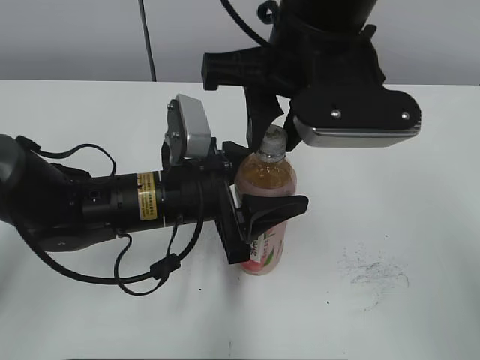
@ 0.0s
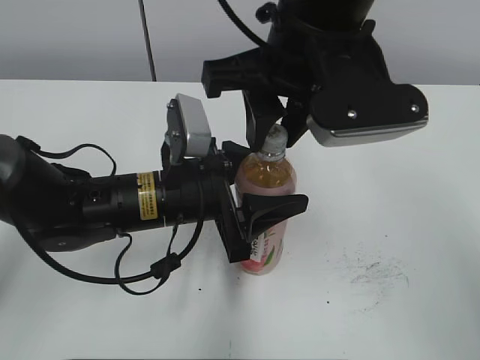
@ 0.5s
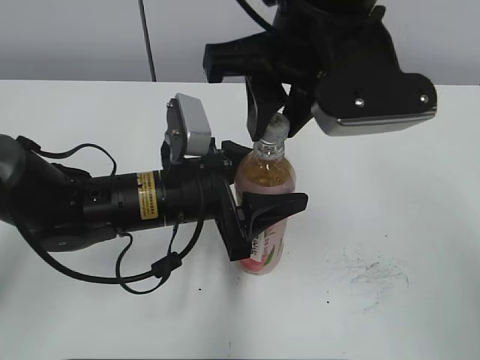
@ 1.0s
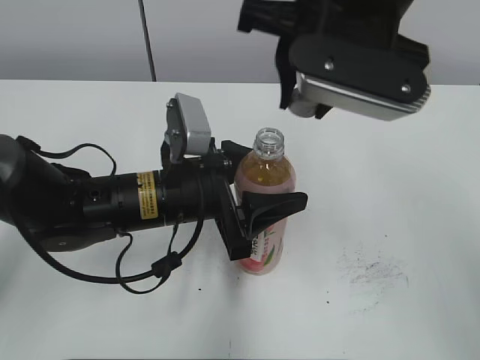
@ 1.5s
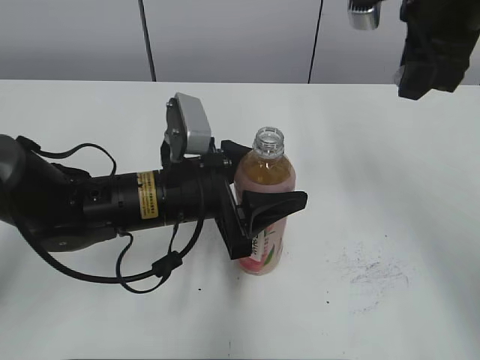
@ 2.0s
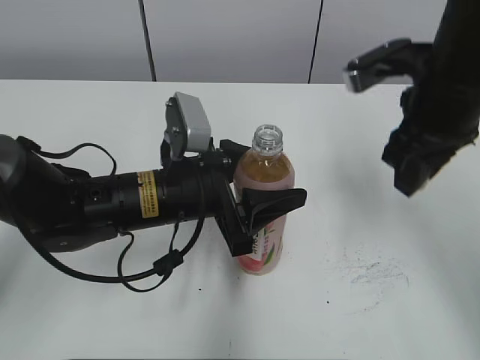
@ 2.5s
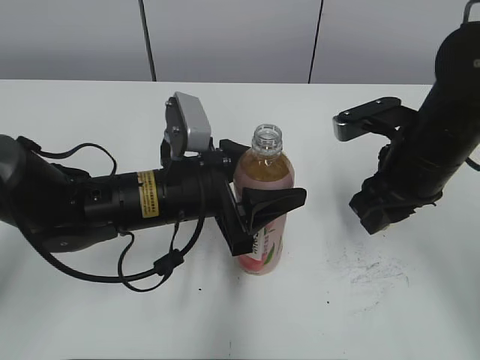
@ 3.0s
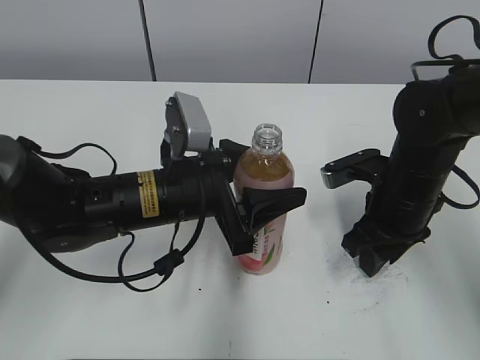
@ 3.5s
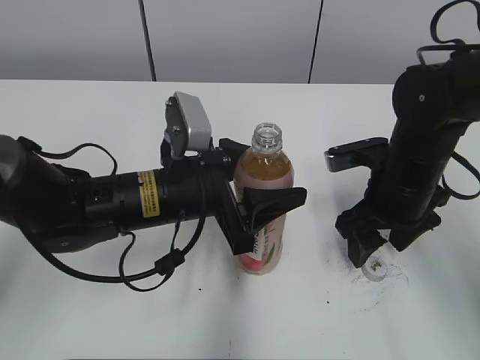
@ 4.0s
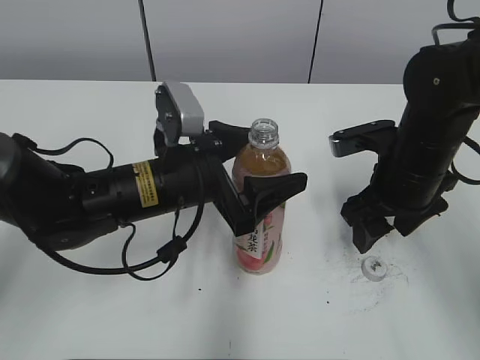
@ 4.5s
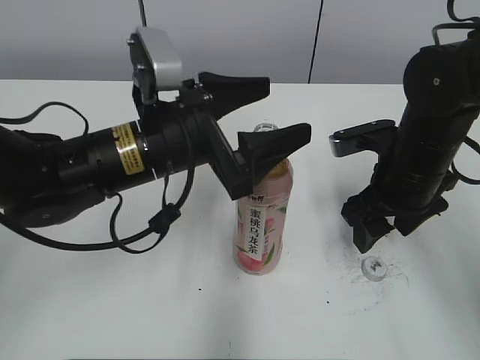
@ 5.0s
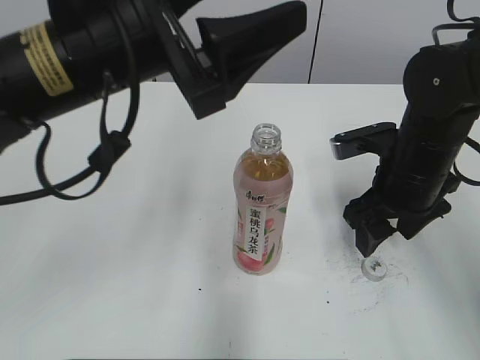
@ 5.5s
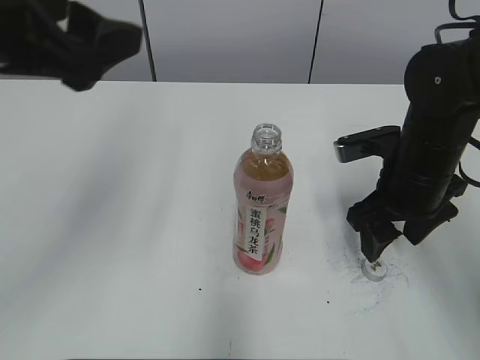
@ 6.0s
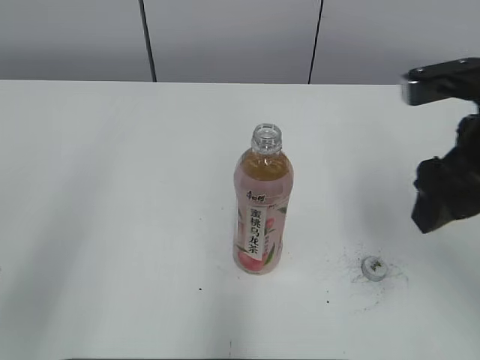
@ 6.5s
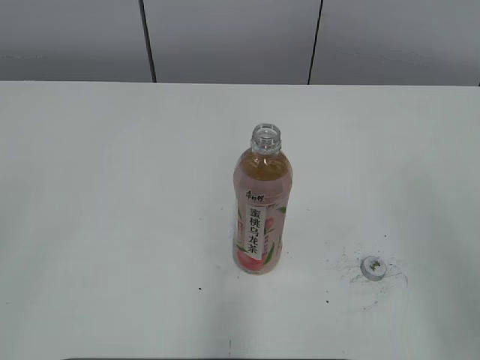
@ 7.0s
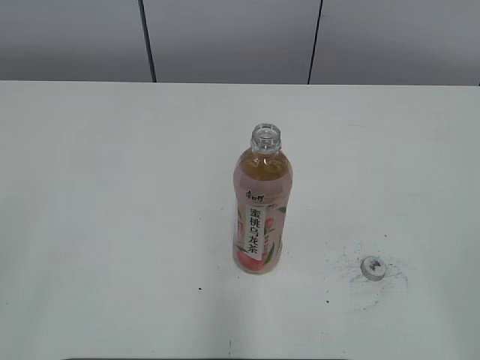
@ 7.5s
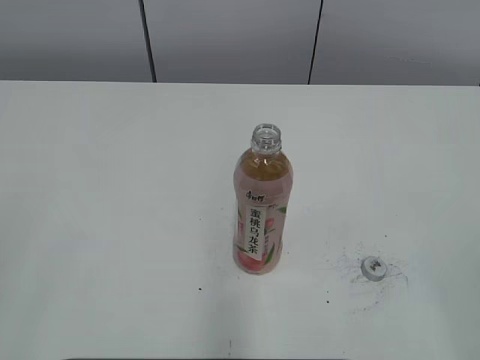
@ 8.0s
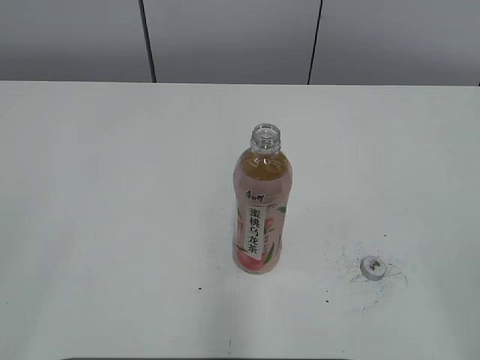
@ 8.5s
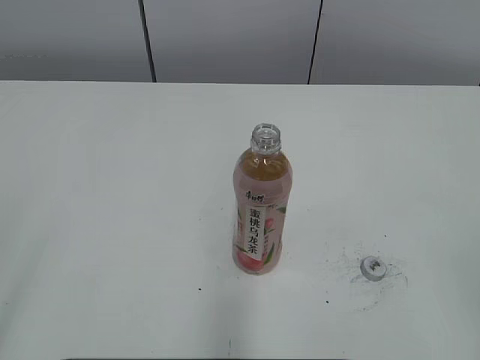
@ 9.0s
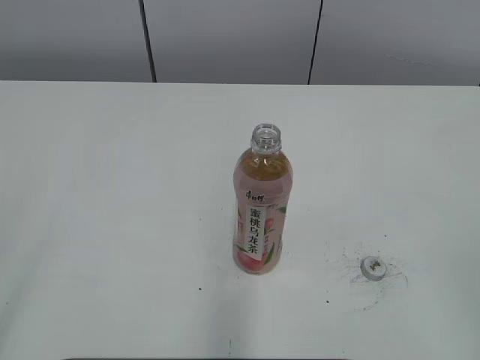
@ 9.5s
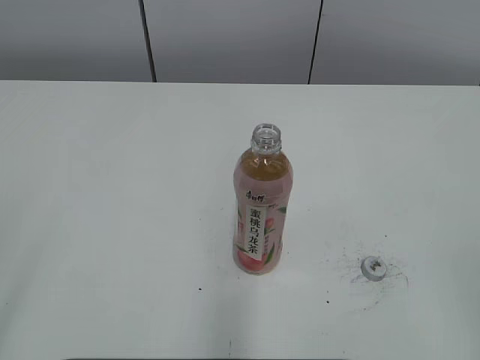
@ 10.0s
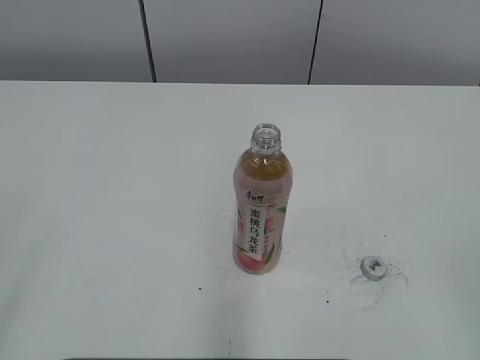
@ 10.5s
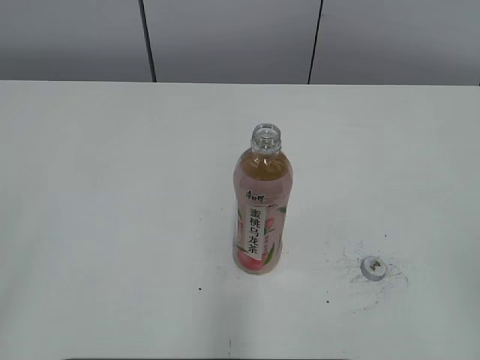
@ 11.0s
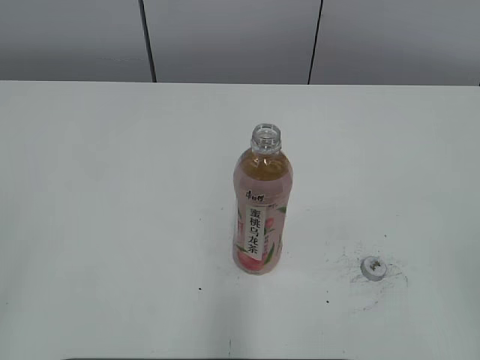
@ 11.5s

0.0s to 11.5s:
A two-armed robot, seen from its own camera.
Step, 1.5s to 4.0s: Place the bottle cap on the right.
Step, 4.5s to 5.0s: Place the Peach Oolong Tea with the left hand.
0.0s to 2.0s: The right gripper is displaced to the right and forward by approximately 15 cm.
2.0s to 4.0s: The right gripper goes some 20 cm downward, and opens up.
4.0s to 6.0s: The left gripper goes roughly 25 cm upward and to the left, and opens.
6.0s to 7.5s: The left gripper travels backward and to the left by approximately 25 cm; the right gripper shifts some 35 cm backward and upward.
9.5s to 11.5s: The two grippers keep their place.
